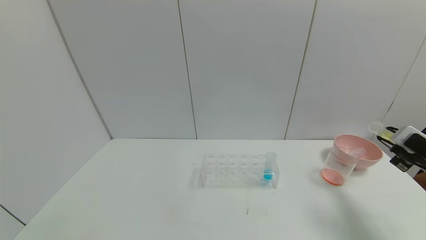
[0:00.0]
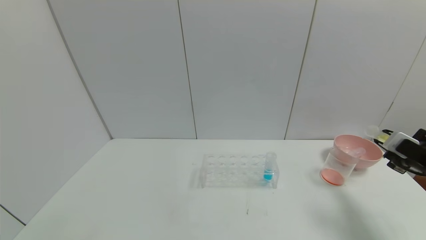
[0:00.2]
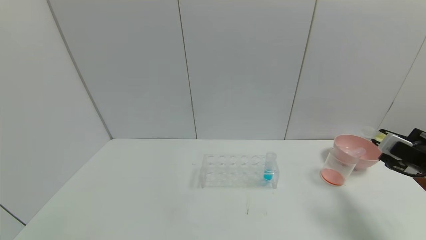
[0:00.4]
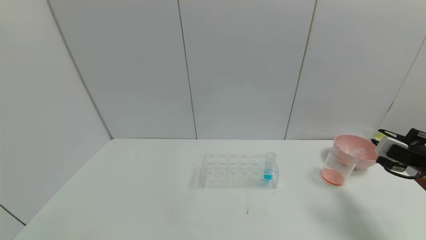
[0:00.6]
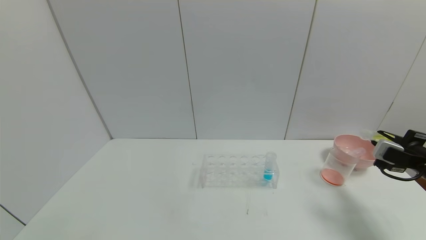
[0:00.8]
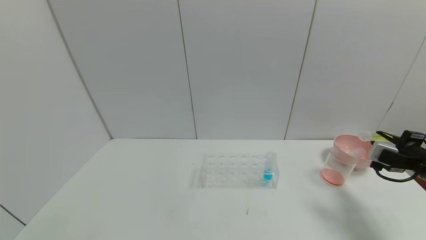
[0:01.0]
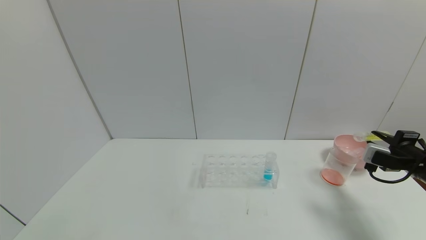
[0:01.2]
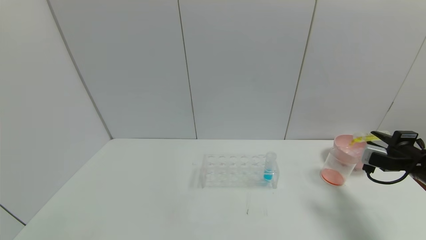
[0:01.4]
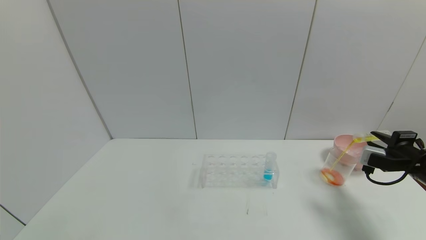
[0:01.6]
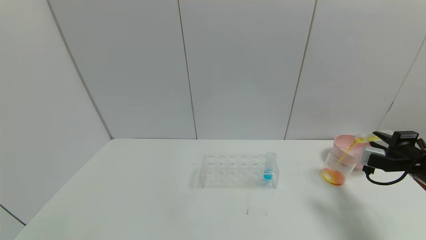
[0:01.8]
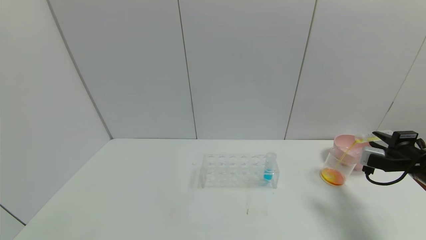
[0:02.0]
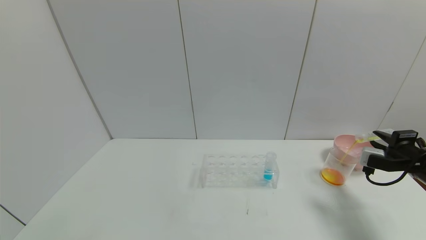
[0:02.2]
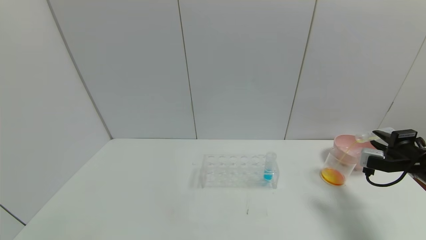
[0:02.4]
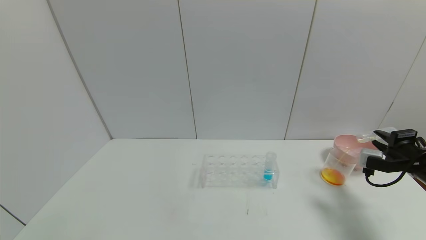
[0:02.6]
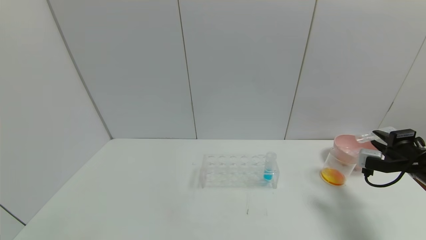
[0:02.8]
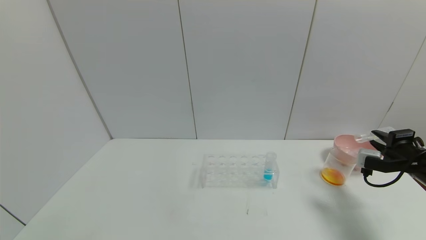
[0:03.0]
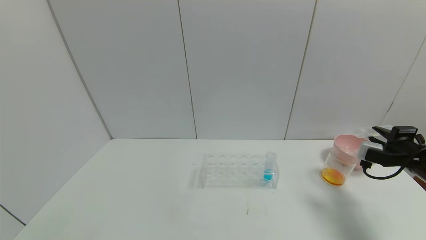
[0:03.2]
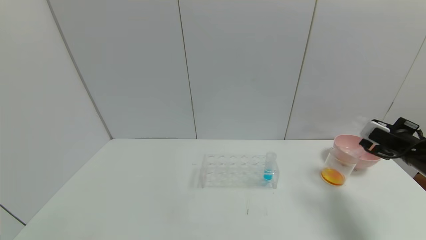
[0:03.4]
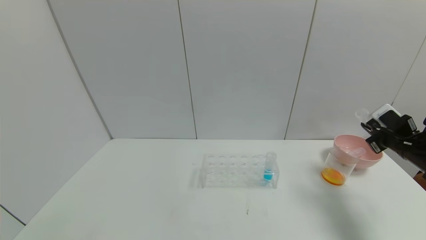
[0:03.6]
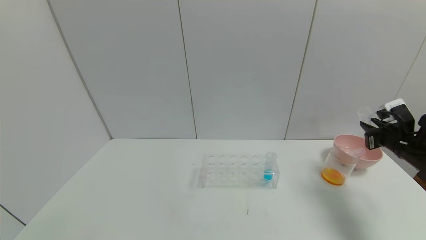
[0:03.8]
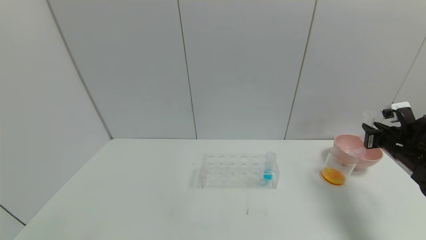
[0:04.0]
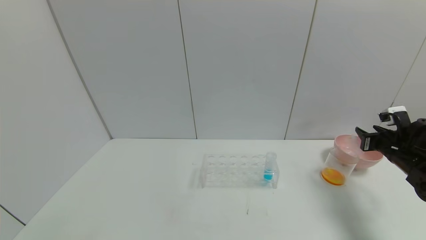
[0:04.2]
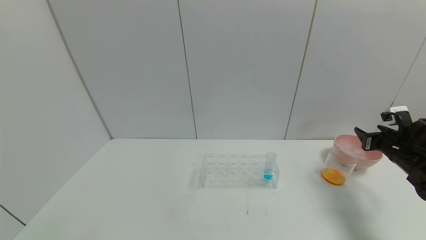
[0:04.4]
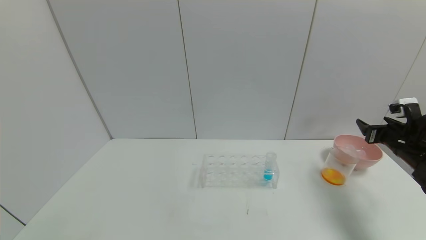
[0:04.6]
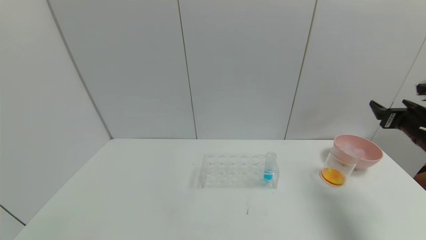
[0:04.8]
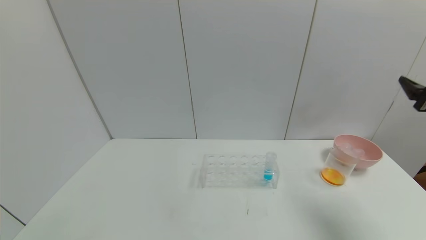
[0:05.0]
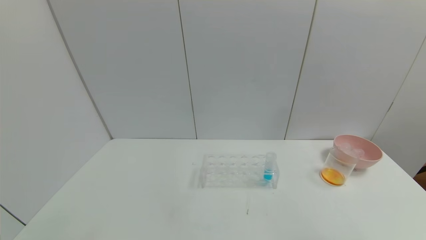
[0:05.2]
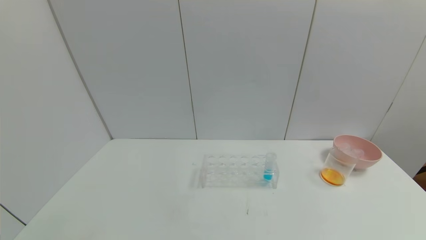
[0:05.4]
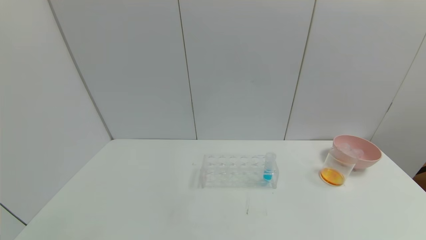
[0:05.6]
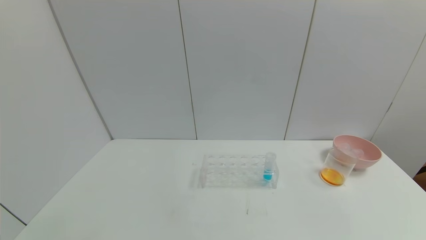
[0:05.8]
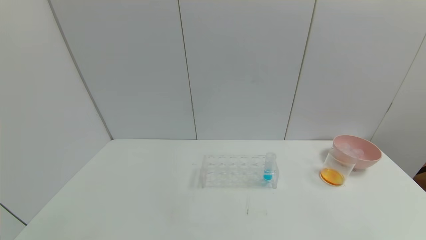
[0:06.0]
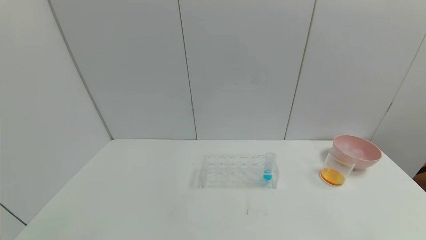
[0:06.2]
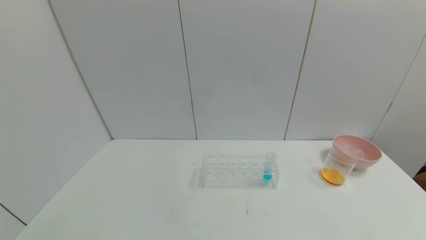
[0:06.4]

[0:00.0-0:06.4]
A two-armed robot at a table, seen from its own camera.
Task of the whole recording: pick up the test tube with yellow pigment and the test tube with red pigment by grippers and pour them into the beaker.
Step, 0:00.0 to 0:02.8: Pour the yellow reagent into the graduated cylinder with the right gripper.
Step, 0:03.0 to 0:04.2: Place the test tube into the bowl with the right gripper.
0:01.6 to 0:03.2: The grippers stay close to where they were, moving slightly.
0:03.2 to 0:04.8: The right gripper shifts some 5 cm upward, and opens up.
0:04.8 to 0:06.4: The right gripper shifts approximately 35 cm backward.

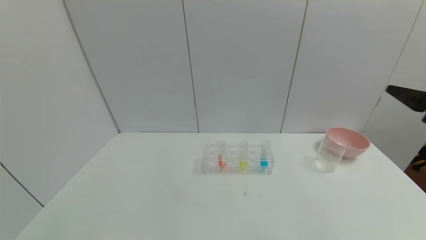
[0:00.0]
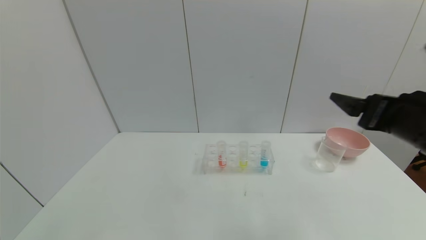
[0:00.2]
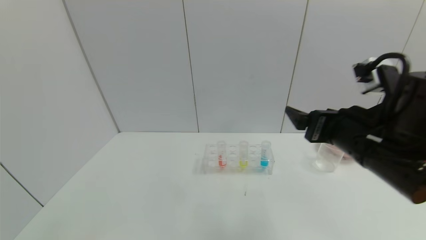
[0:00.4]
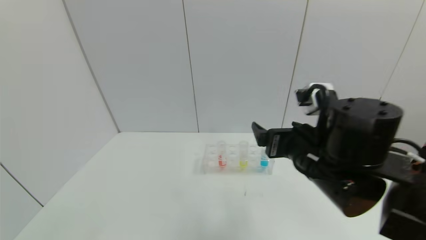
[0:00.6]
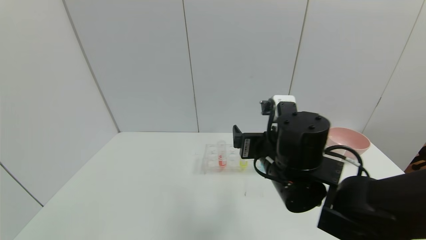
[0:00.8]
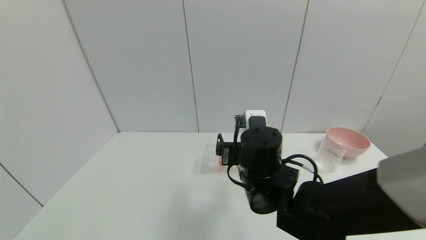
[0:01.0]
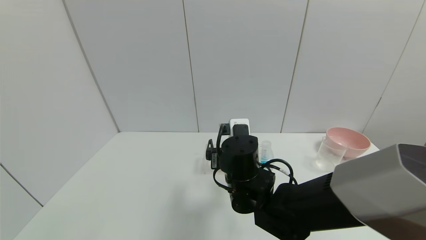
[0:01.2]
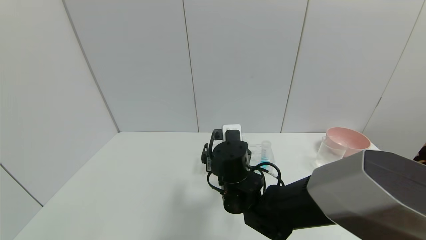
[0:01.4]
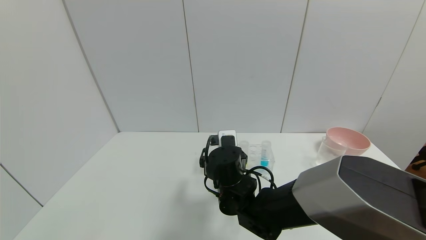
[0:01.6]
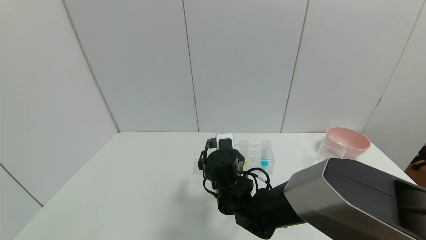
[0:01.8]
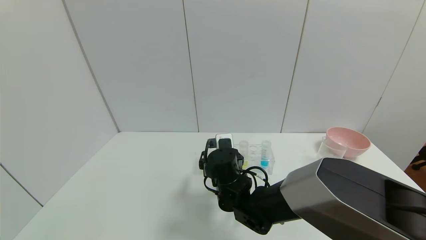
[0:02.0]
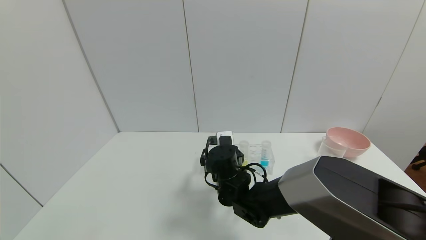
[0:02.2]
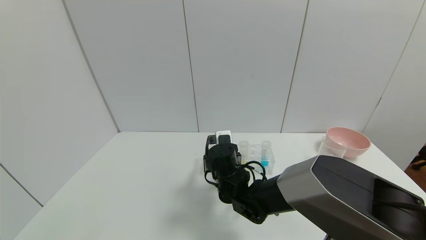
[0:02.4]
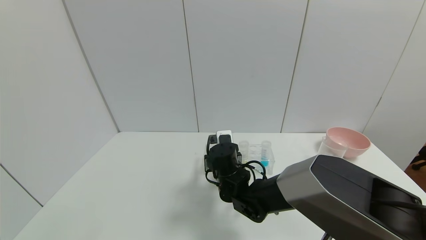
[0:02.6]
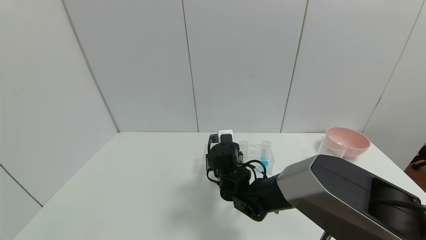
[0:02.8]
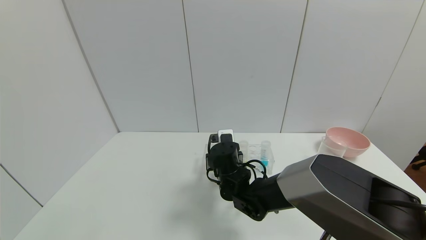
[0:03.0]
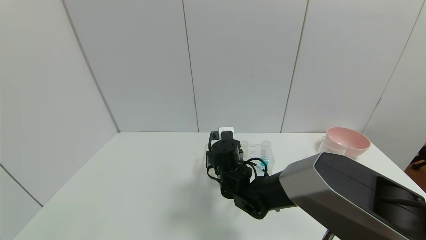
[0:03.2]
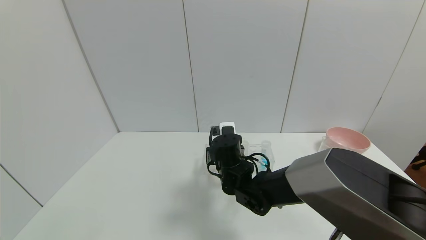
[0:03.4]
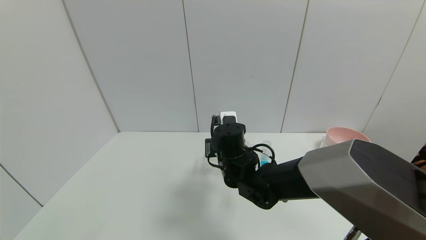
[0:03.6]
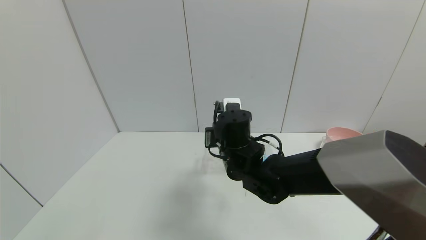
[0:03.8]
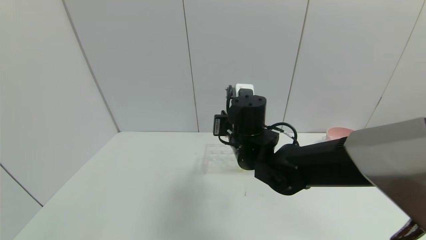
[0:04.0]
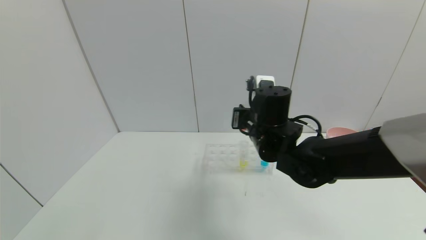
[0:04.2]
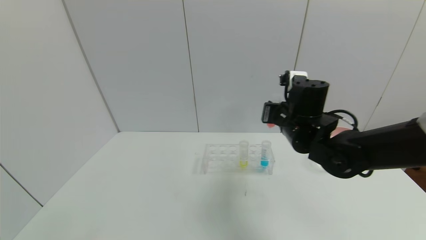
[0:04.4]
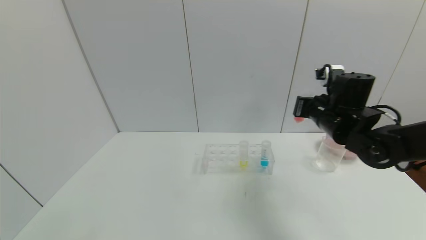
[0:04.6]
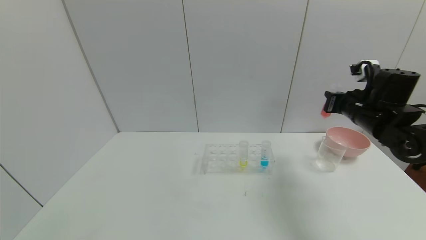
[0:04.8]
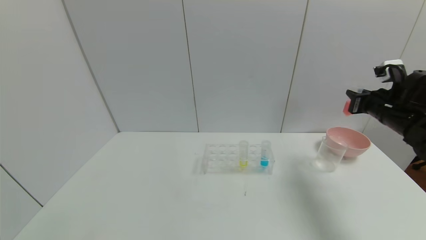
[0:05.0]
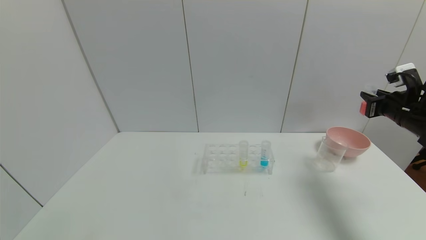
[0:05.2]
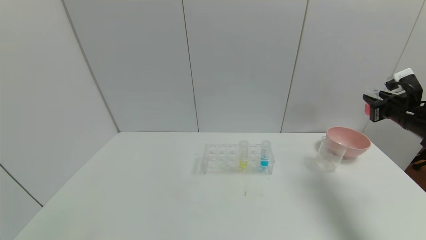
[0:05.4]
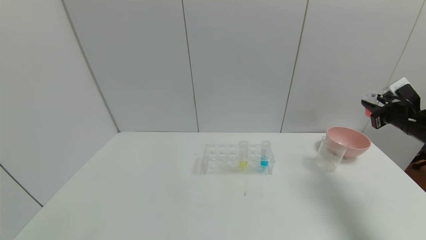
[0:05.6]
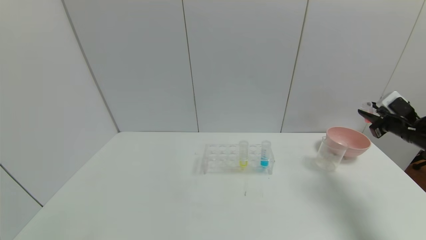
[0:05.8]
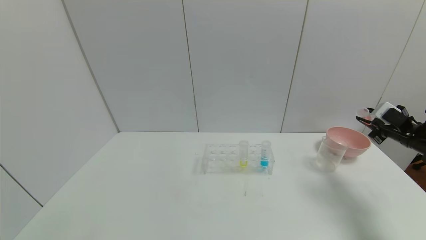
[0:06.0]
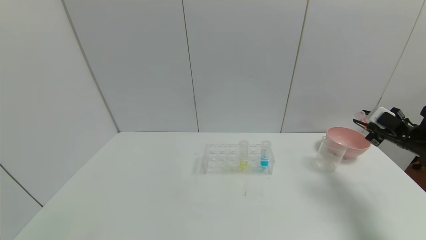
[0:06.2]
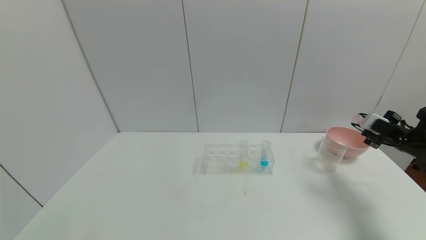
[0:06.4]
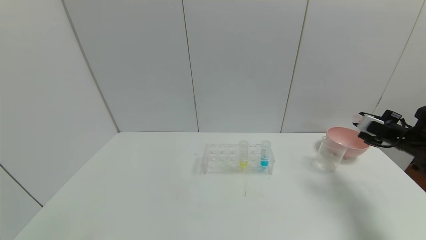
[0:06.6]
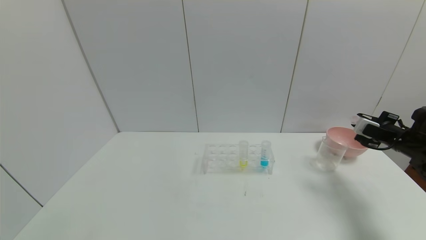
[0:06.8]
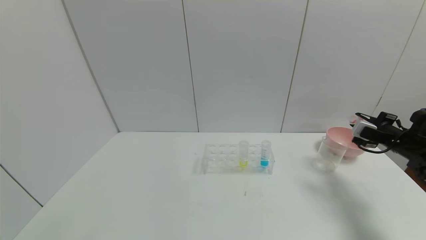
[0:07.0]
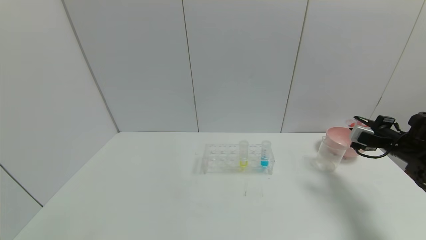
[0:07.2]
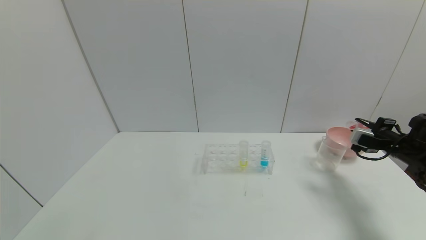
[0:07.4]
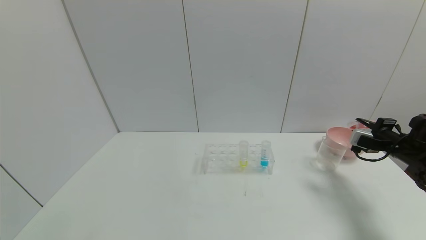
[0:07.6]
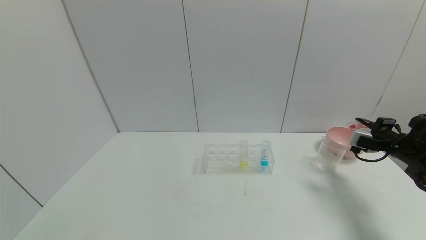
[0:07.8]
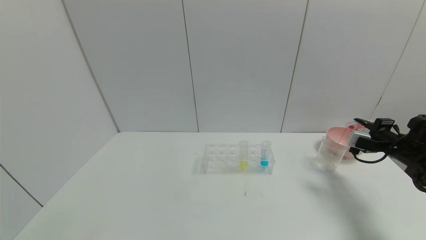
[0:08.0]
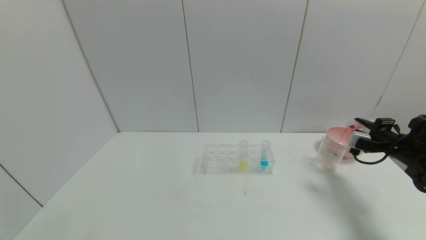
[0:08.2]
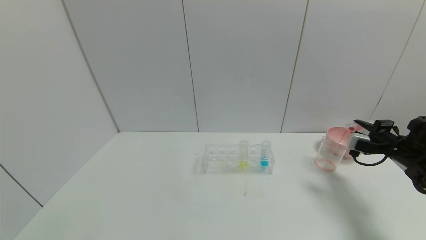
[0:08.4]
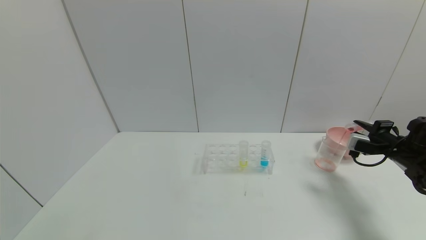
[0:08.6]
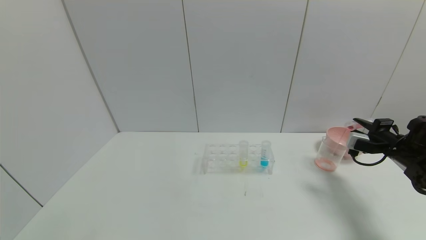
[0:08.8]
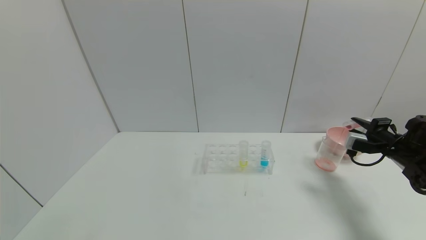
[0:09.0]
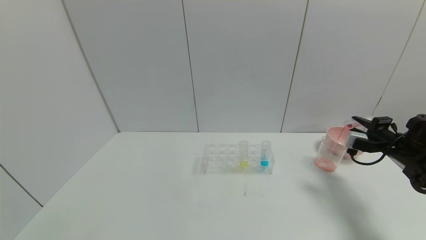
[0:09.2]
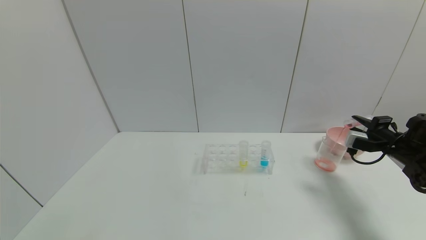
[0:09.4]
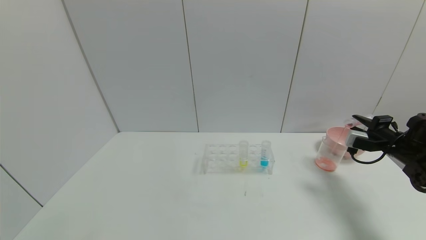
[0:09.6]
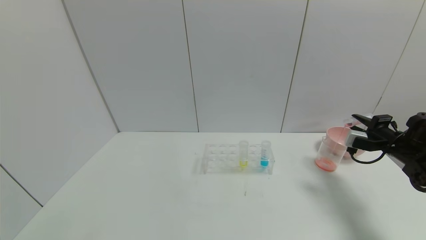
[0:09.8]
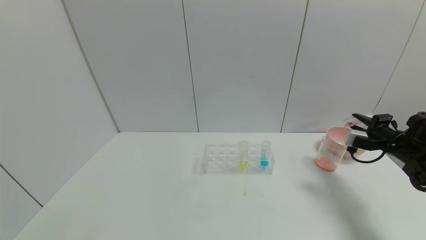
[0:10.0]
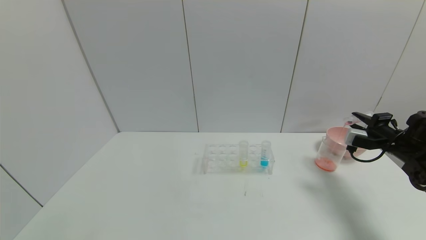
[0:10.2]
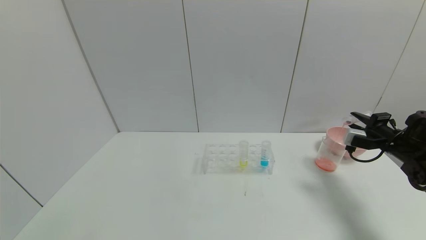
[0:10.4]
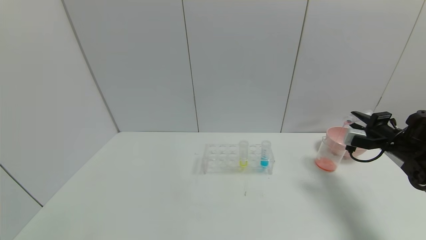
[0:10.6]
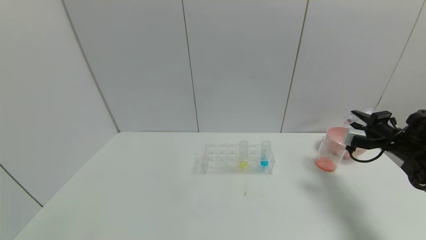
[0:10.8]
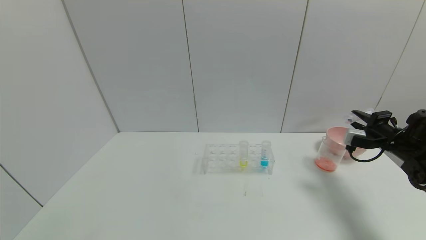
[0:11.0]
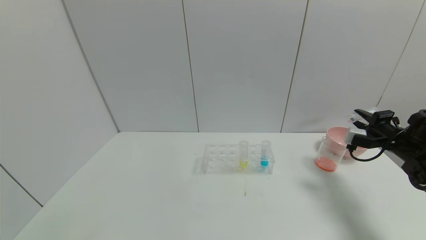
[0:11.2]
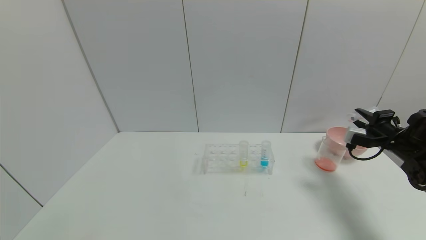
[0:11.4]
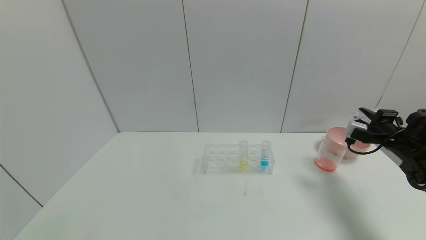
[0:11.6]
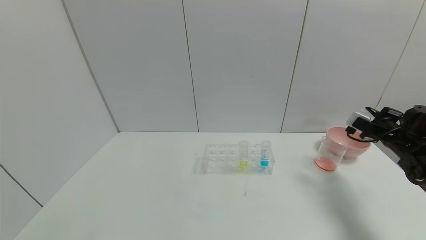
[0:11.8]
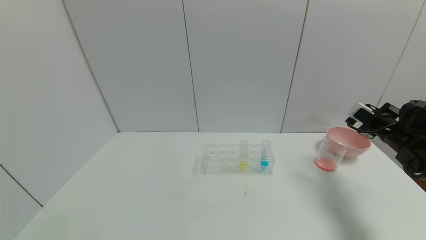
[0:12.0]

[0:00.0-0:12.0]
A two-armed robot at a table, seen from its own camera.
Task of the whole recording: pick up the test tube with yellow pigment and the test tube with red pigment by grippers and pour them into the beaker.
Step, 0:00.0 to 0:02.8: Grasp the red reagent with the right gripper.
Step, 0:03.0 to 0:11.0: Pour the red reagent into the graduated cylinder with the right gripper.
0:00.0 to 0:01.6: The right gripper travels to the left, downward and forward by about 40 cm.
0:01.6 to 0:03.0: The right gripper closes up.
0:03.0 to 0:04.4: The right gripper travels to the right and upward by roughly 20 cm.
0:04.4 to 0:06.0: The right gripper goes approximately 30 cm to the right.
0:07.6 to 0:09.0: The grippers make only small movements.
0:09.0 to 0:10.4: Neither gripper changes place.
